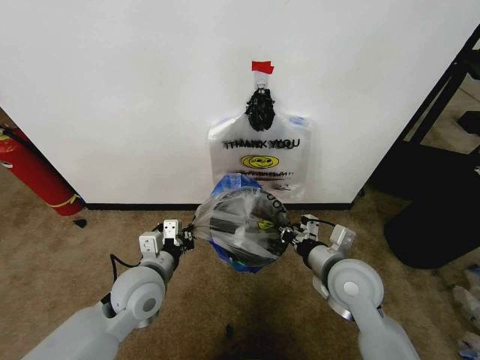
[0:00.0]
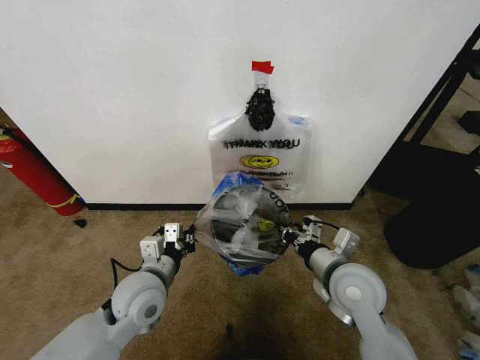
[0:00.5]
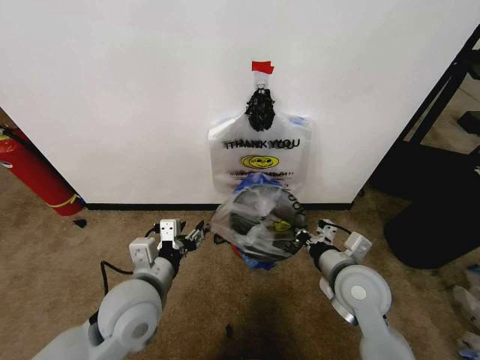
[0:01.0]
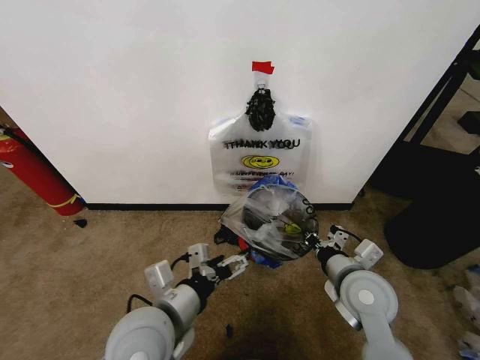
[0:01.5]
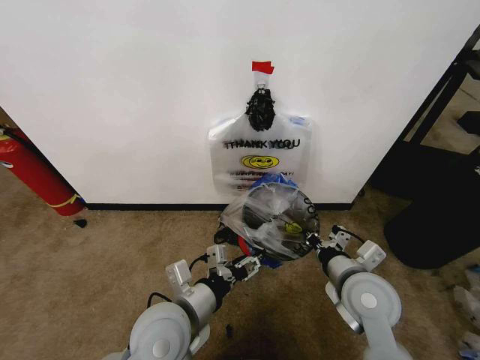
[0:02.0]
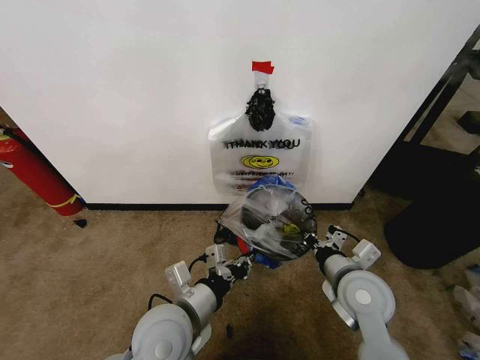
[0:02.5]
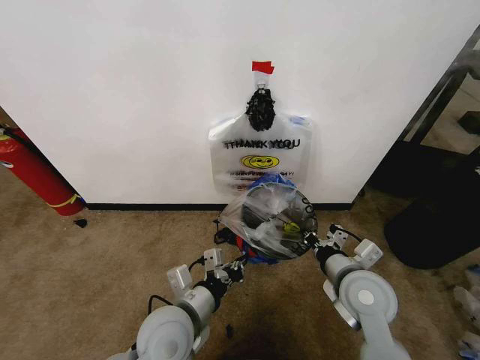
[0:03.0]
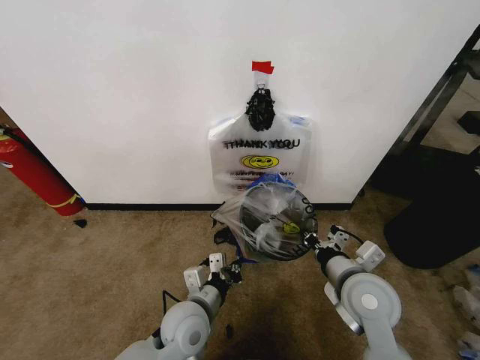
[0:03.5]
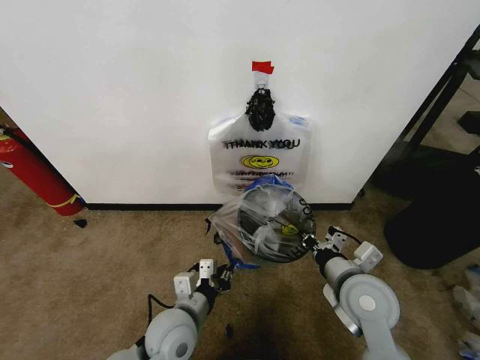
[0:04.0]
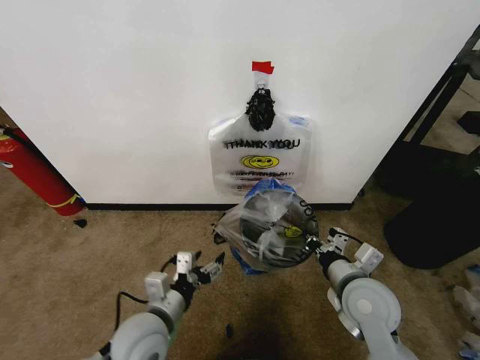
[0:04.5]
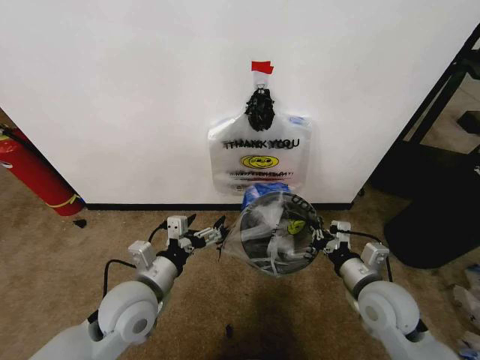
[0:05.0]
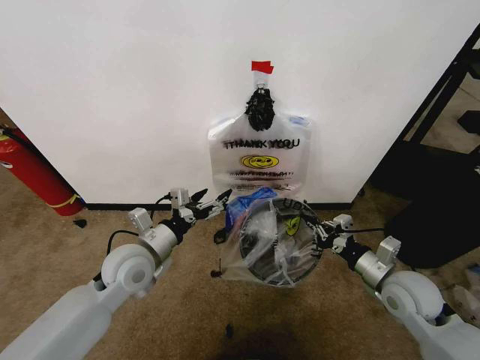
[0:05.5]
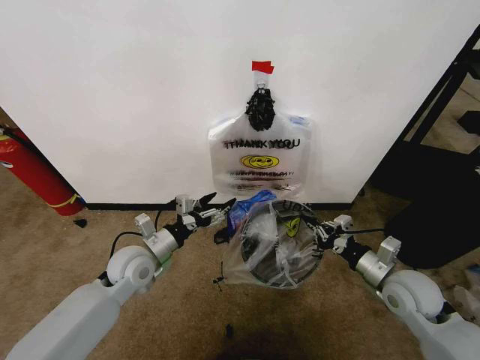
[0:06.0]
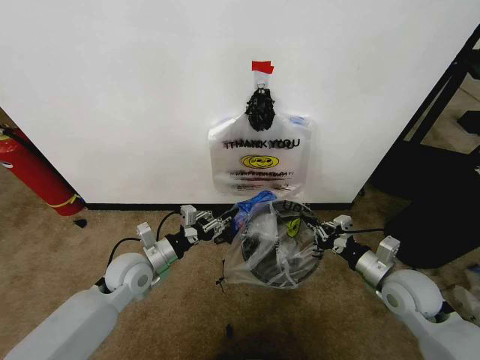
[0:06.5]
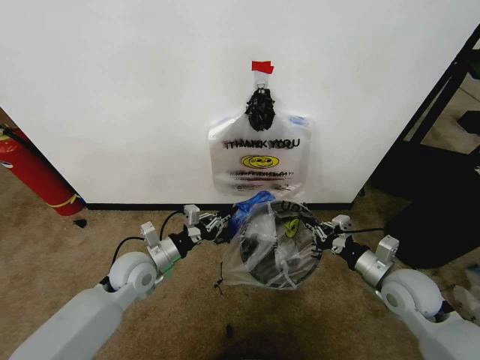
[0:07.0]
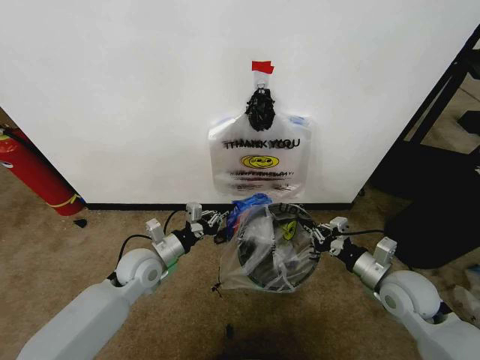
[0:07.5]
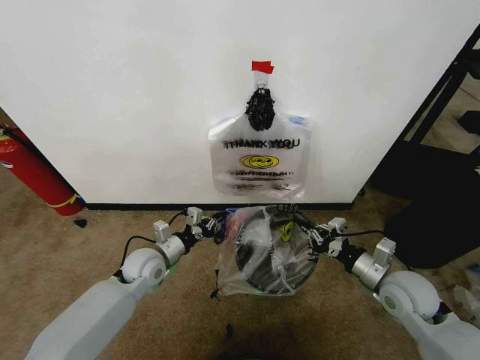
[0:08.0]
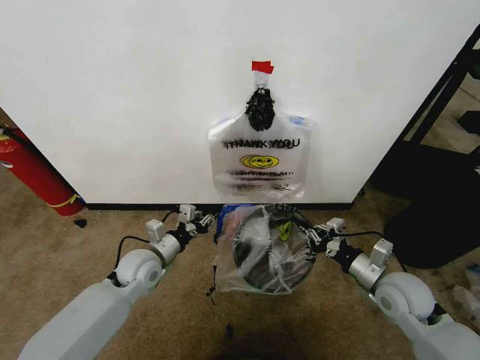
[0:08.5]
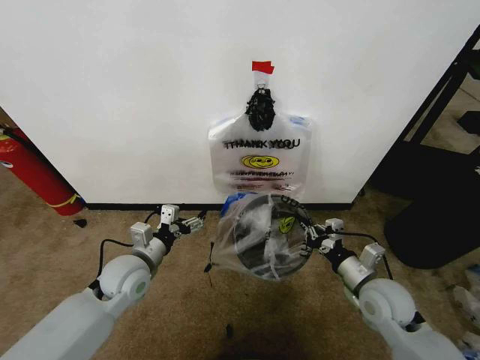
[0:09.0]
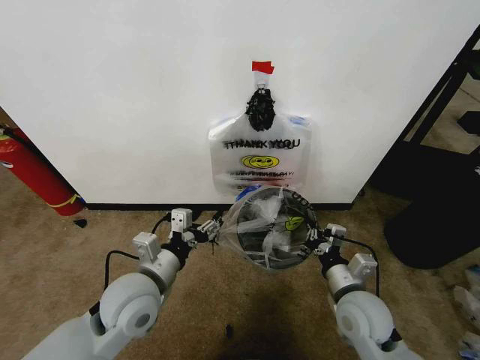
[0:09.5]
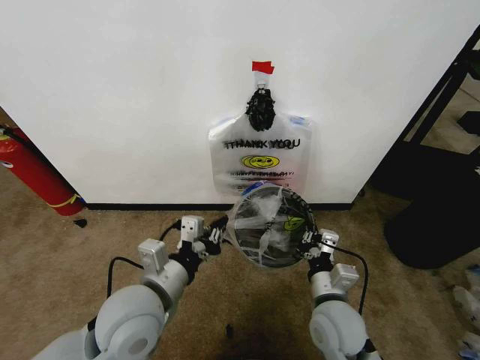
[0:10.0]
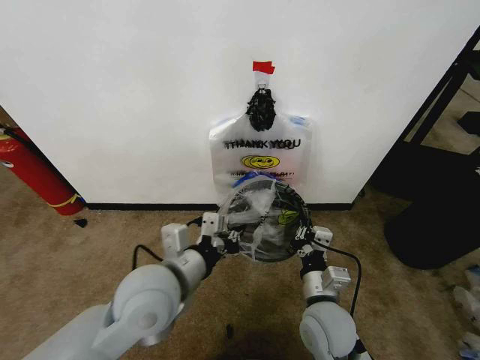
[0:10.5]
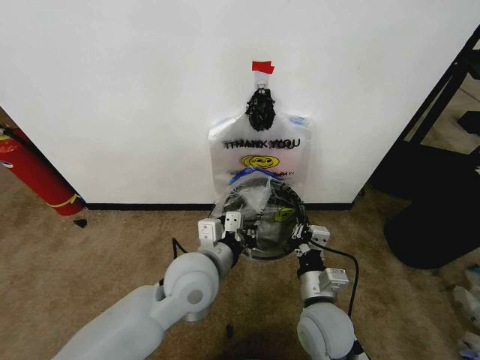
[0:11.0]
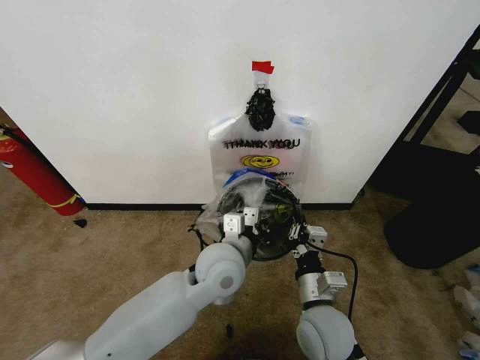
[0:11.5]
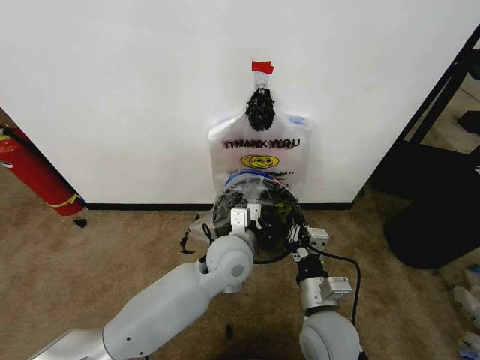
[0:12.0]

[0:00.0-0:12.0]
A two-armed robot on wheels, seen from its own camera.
Task of the whole recording: Pick up the garbage bag from the wall and place it over the trash bin.
0:00.0 to 0:02.0: The left gripper shifts about 10 cm backward and to the right, and opens up.
0:02.0 to 0:04.0: The left gripper shifts roughly 10 cm downward, and closes its fingers.
0:04.0 to 0:06.0: The right gripper moves to the right, some 10 cm, while the left gripper goes approximately 15 cm forward and to the left, and opens its fingers.
0:06.0 to 0:08.0: The left gripper moves downward, about 5 cm, and closes up.
0:08.0 to 0:10.0: The right gripper moves to the left, approximately 15 cm. Meanwhile the left gripper heads backward, upward and to the right, covering some 20 cm, and opens, then closes again.
0:10.0 to 0:12.0: The left gripper is displaced to the right and forward by some 20 cm.

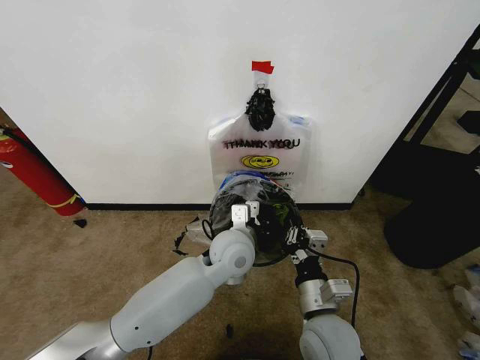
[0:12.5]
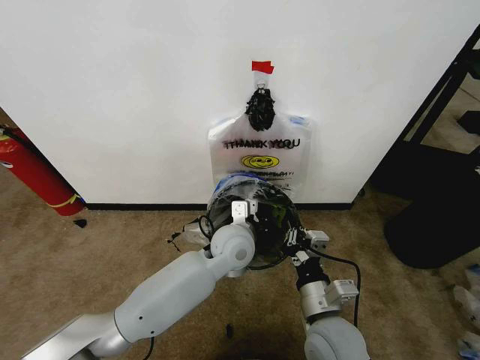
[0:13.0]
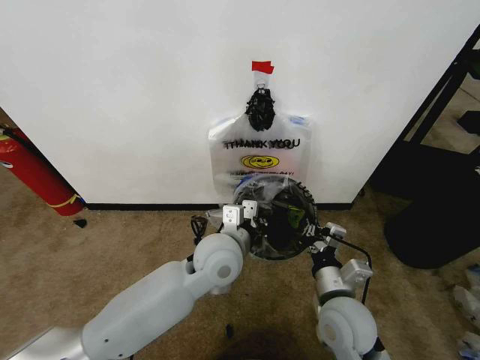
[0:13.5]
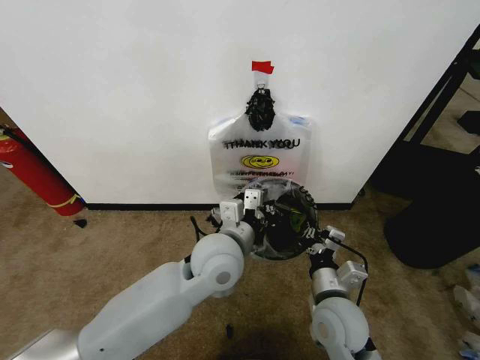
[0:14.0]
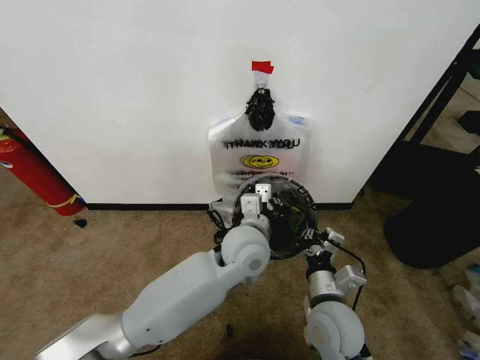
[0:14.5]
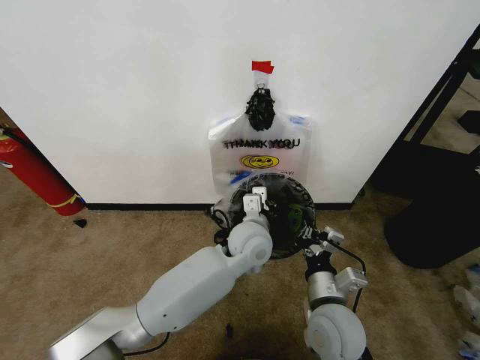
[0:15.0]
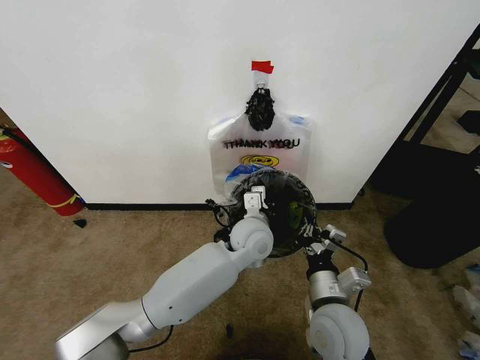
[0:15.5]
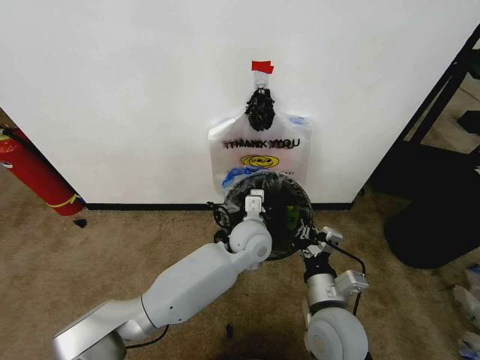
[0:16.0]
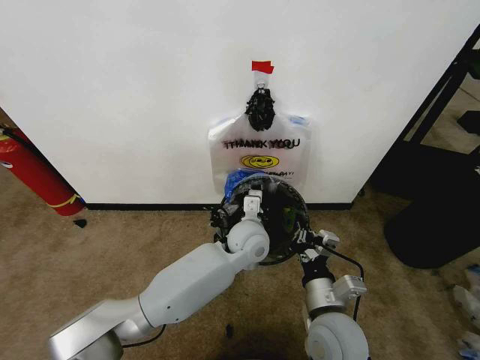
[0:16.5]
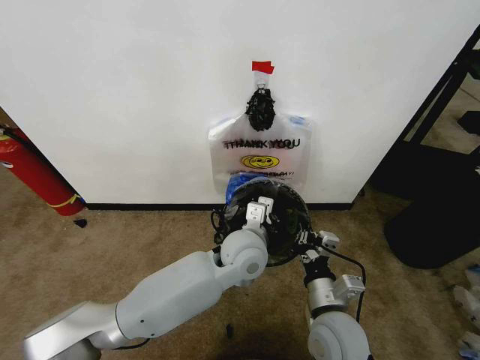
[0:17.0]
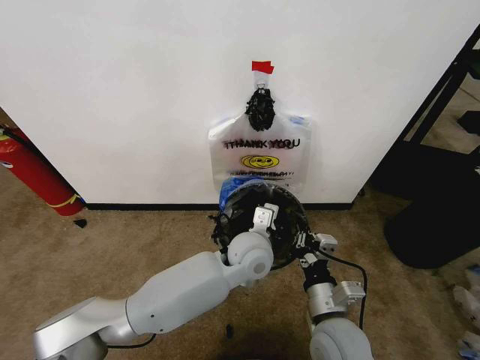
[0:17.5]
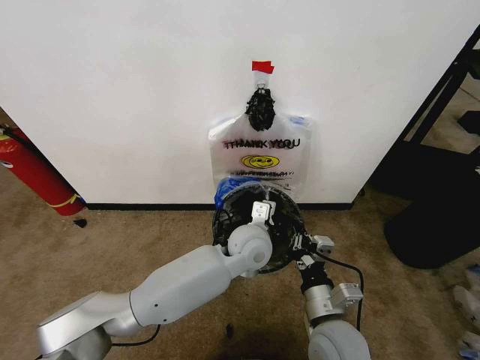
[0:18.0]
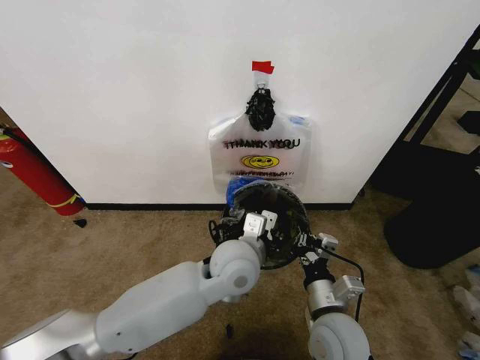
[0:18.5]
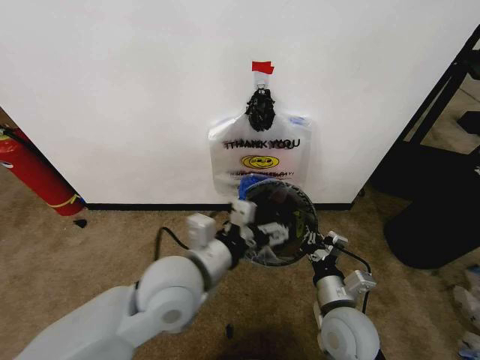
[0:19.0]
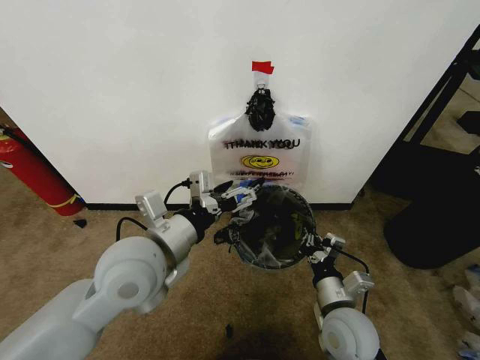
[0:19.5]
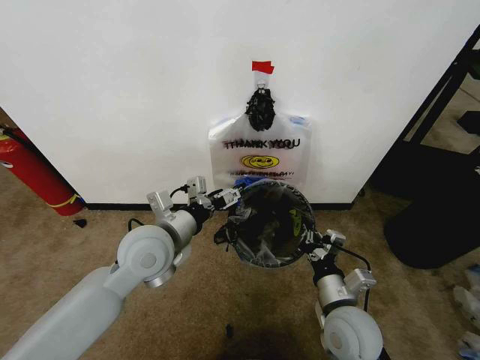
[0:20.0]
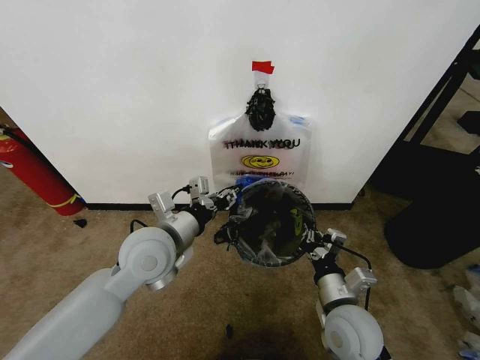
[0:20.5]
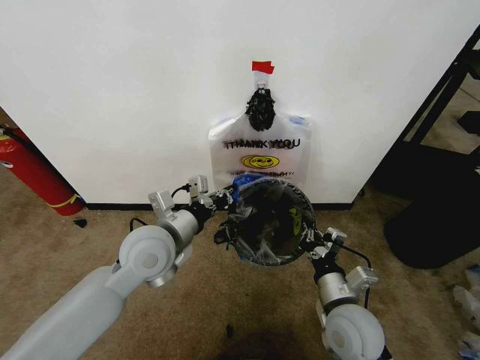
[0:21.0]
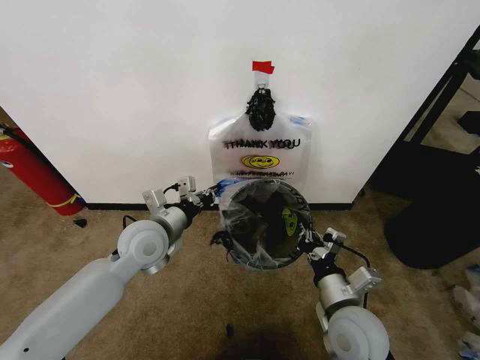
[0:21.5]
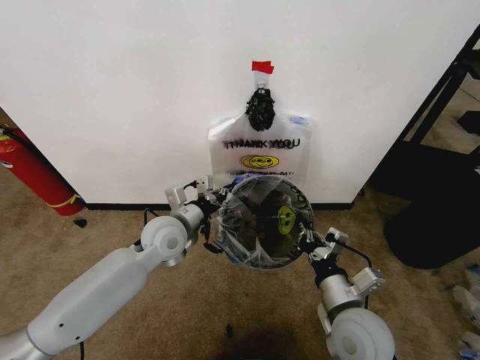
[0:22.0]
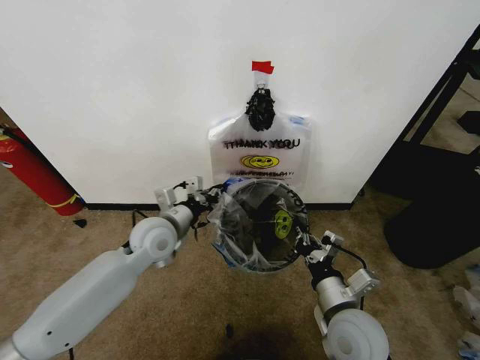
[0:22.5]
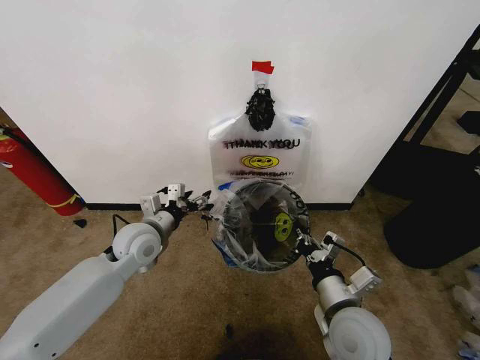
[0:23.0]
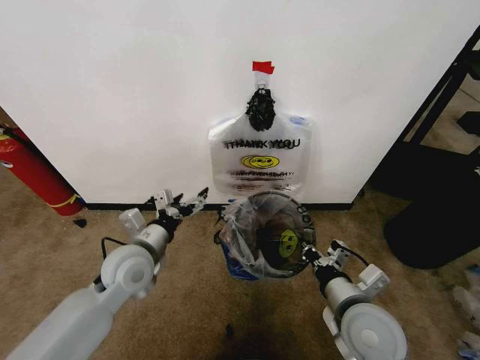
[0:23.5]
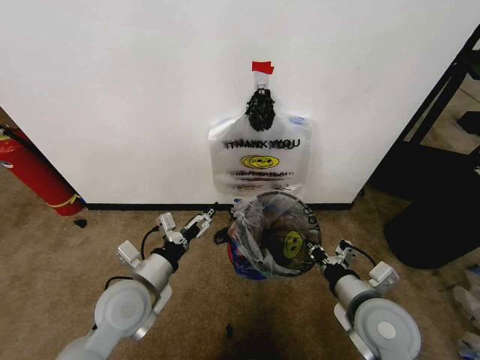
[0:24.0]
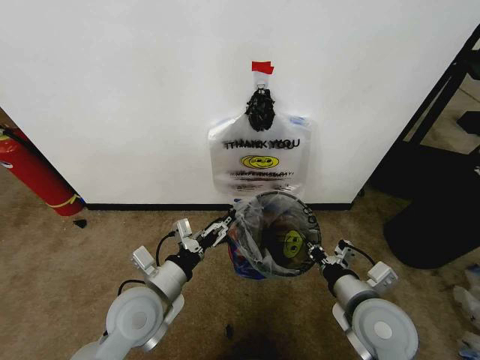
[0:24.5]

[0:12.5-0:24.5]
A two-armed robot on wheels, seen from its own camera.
Task of the whole recording: Pick up the garbage bag from the wall and place it over the trash bin.
0:14.5 to 0:16.5: The left gripper shifts approximately 10 cm forward and downward.
0:16.5 to 0:18.5: The left gripper is displaced backward and upward by some 10 cm.
0:18.5 to 0:20.5: The left gripper shifts about 15 cm to the left, and opens, then closes once more.
0:20.5 to 0:22.5: The left gripper goes roughly 10 cm forward and downward.
0:22.5 to 0:24.5: The left gripper is displaced backward by about 15 cm, and opens up.

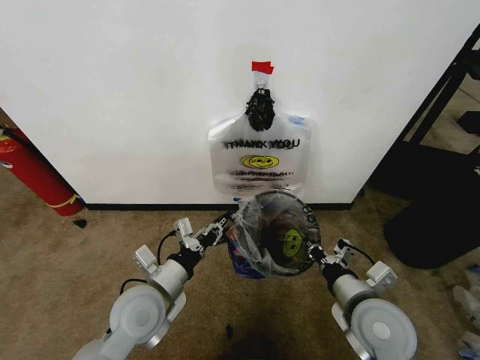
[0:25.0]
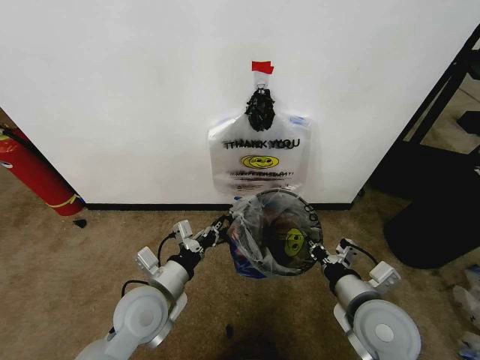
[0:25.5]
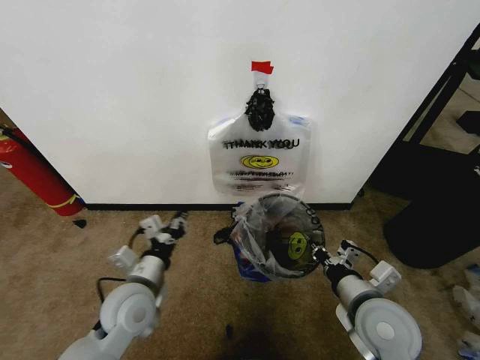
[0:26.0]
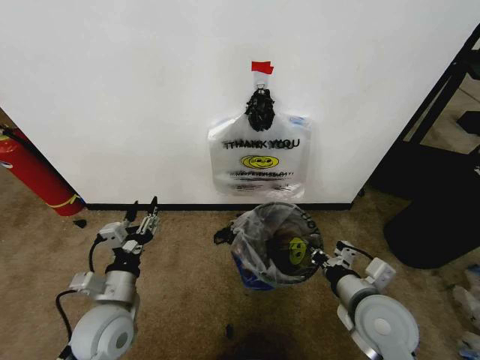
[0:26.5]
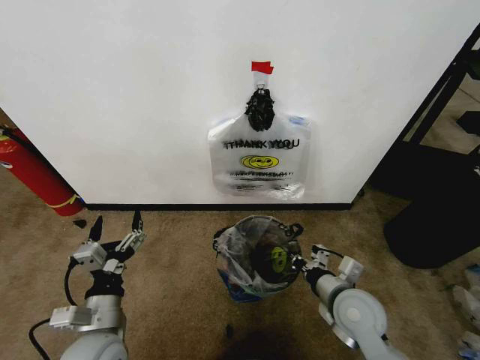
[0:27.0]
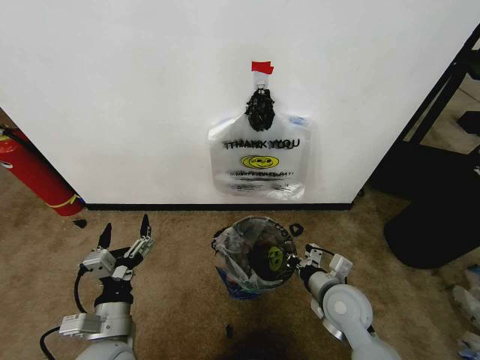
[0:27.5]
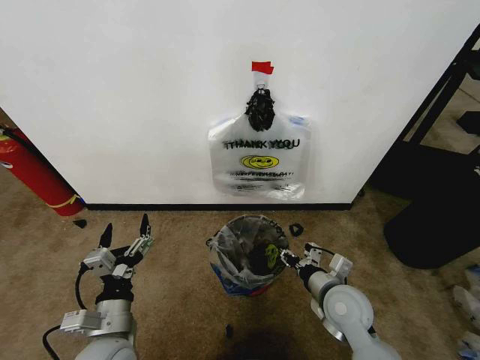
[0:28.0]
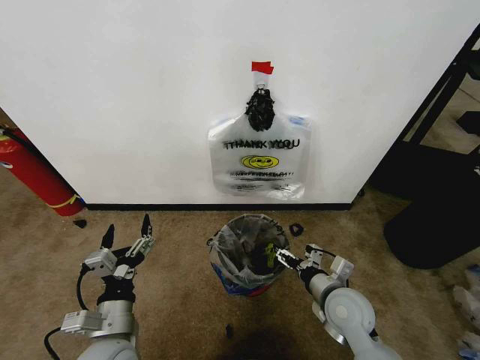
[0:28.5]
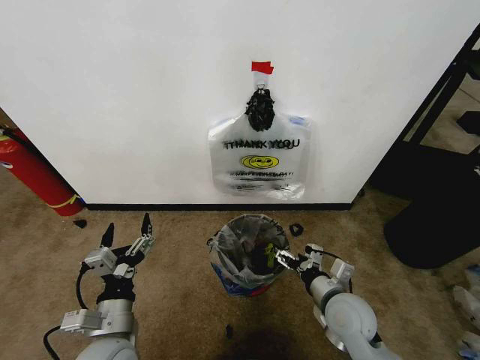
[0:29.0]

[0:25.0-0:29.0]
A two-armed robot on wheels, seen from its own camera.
Task of the whole recording: Pick up the garbage bag from the wall and place it over the trash bin.
0:25.0 to 0:27.0: The right gripper travels downward by some 5 cm. The left gripper is displaced to the left and backward by some 10 cm, and opens.
0:27.0 to 0:29.0: The right gripper opens its fingers.
